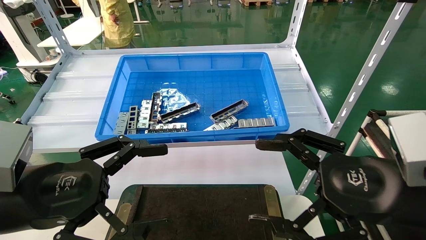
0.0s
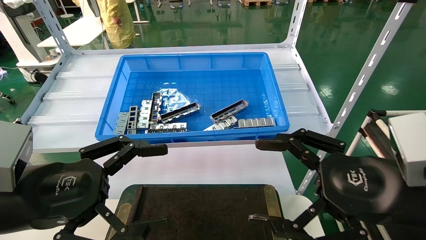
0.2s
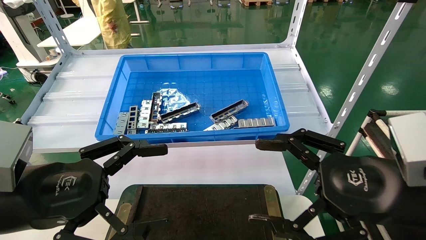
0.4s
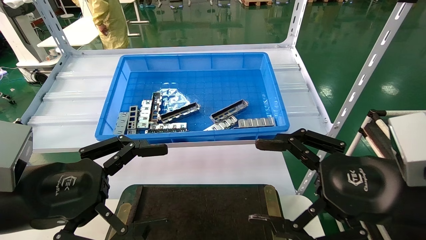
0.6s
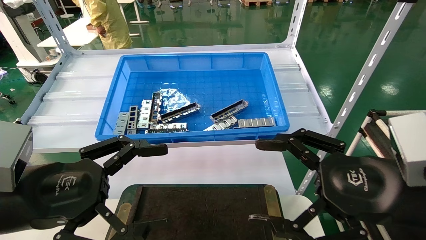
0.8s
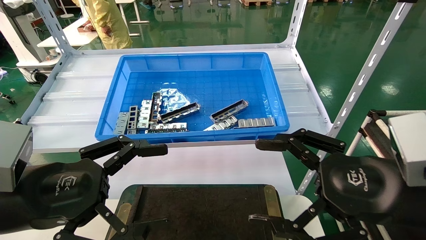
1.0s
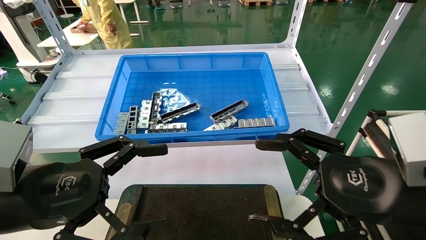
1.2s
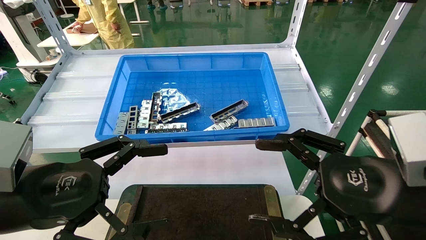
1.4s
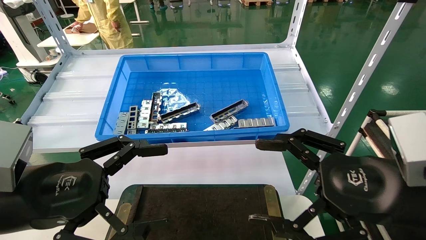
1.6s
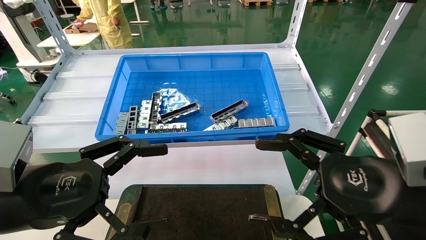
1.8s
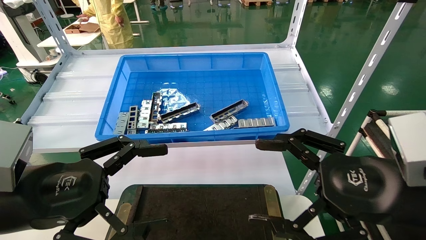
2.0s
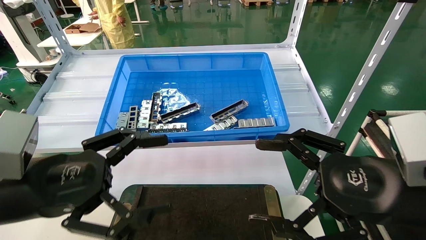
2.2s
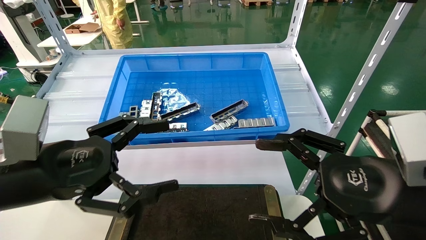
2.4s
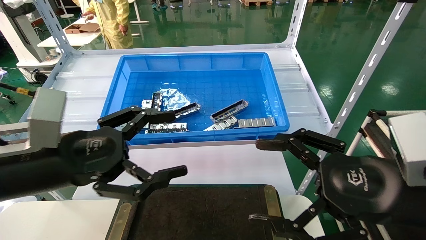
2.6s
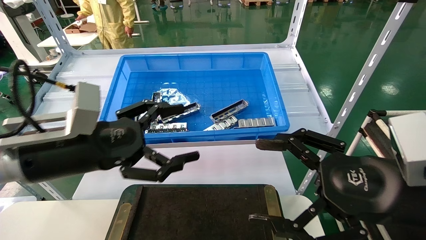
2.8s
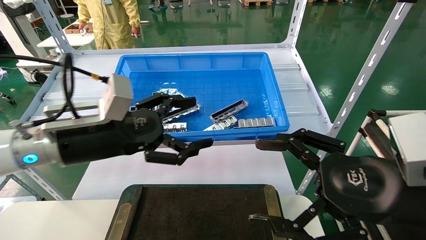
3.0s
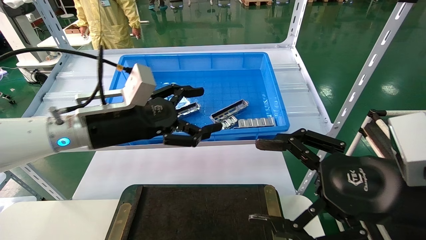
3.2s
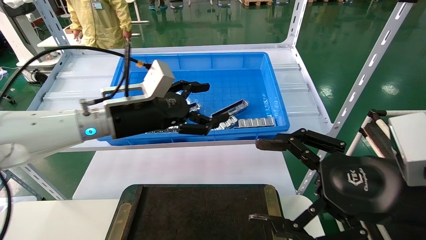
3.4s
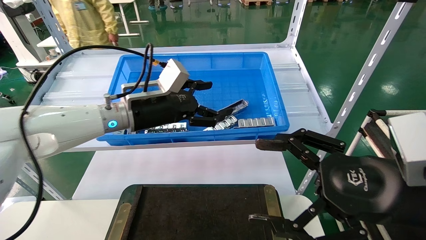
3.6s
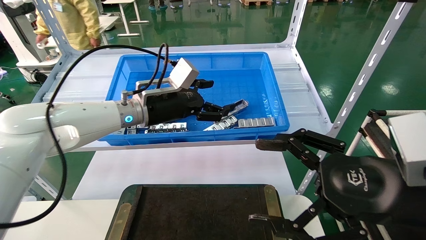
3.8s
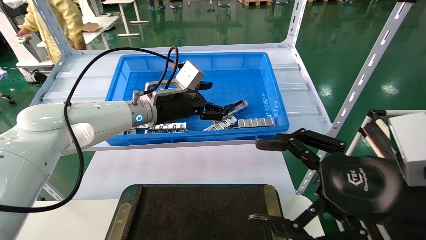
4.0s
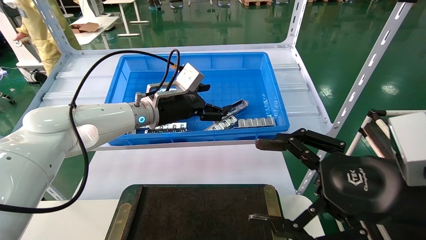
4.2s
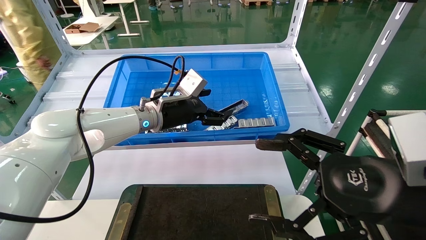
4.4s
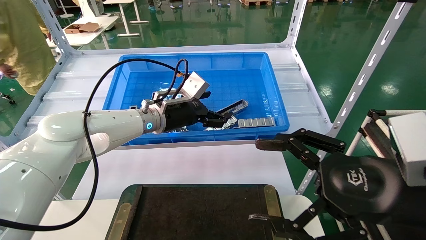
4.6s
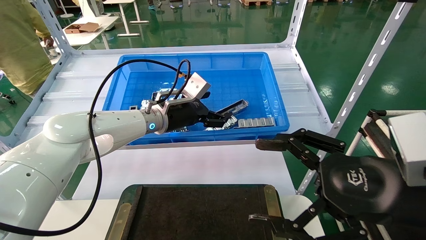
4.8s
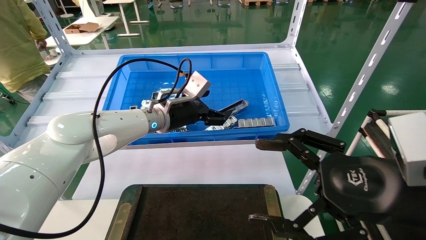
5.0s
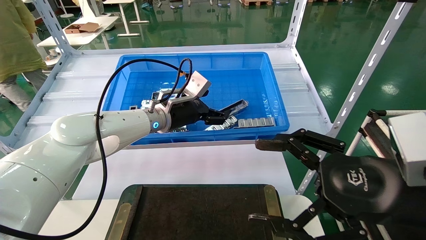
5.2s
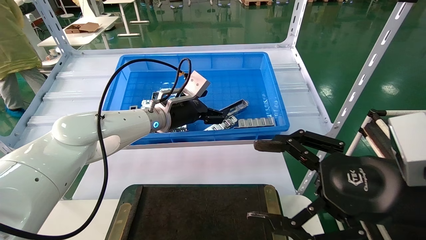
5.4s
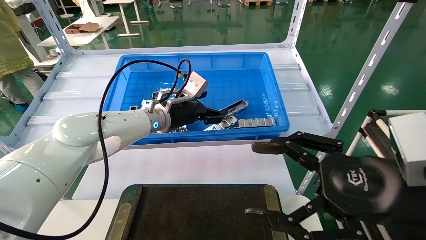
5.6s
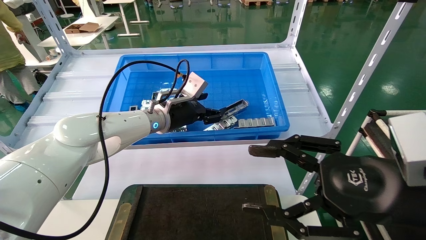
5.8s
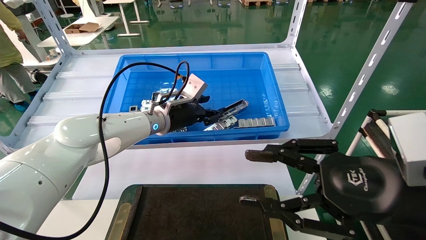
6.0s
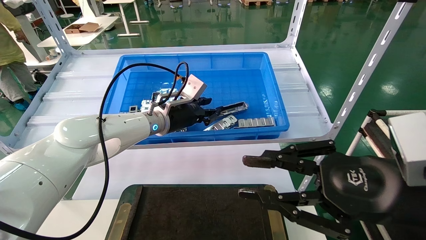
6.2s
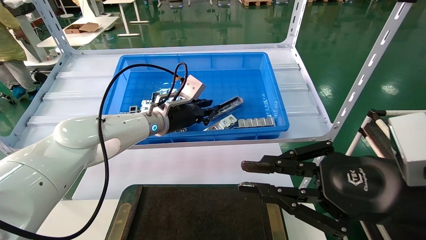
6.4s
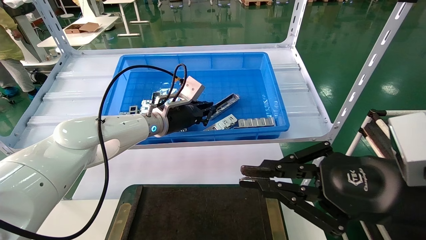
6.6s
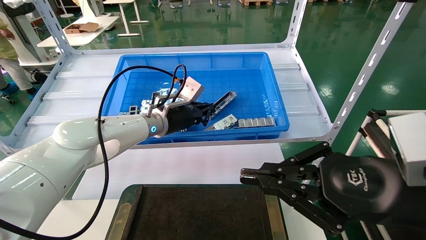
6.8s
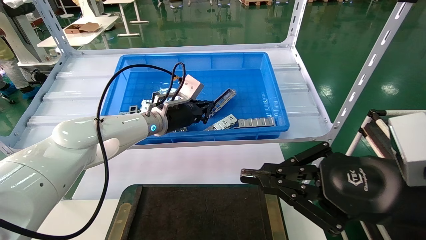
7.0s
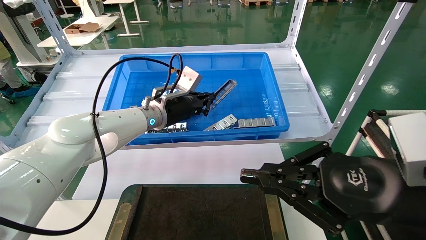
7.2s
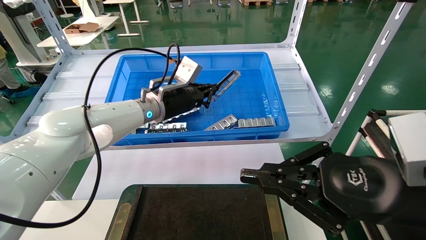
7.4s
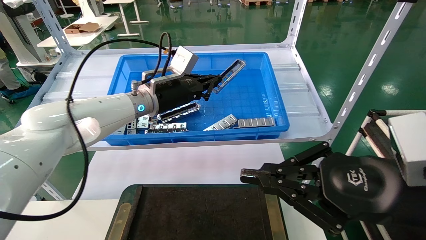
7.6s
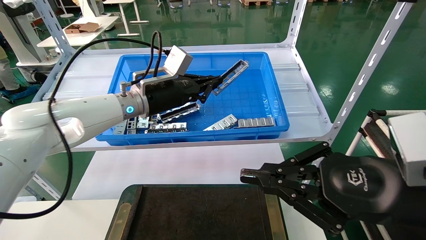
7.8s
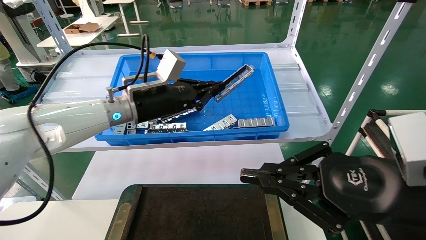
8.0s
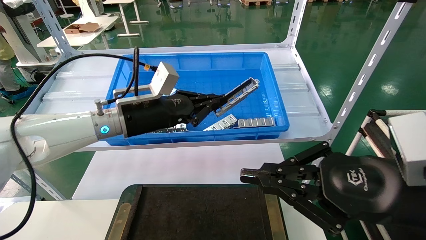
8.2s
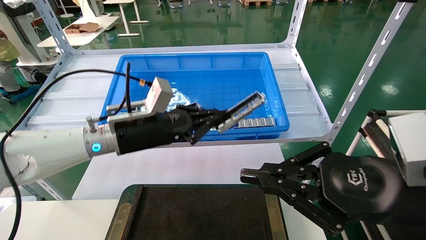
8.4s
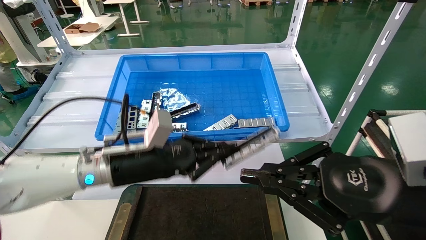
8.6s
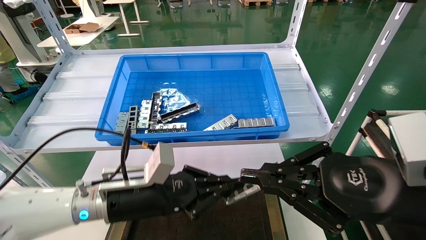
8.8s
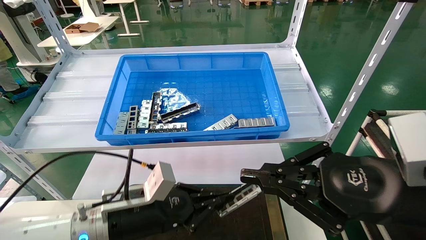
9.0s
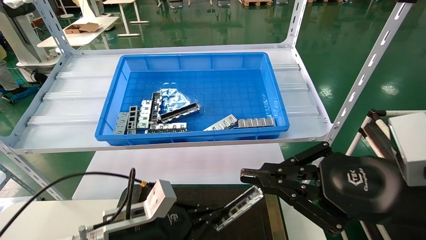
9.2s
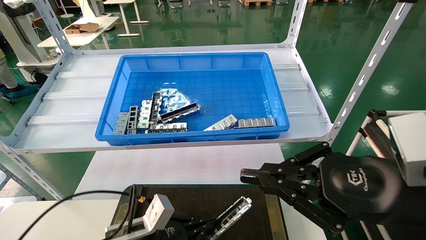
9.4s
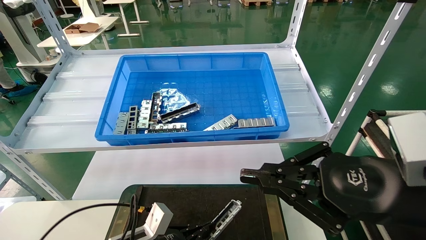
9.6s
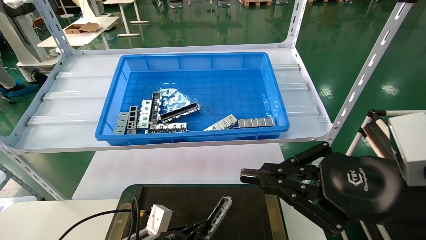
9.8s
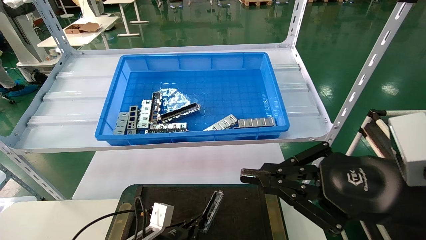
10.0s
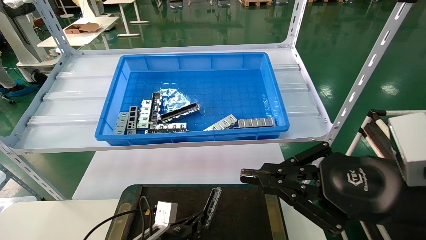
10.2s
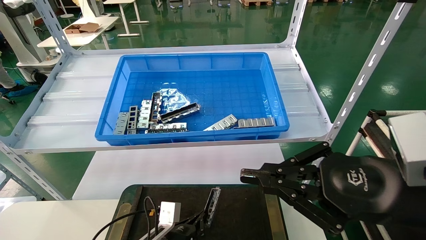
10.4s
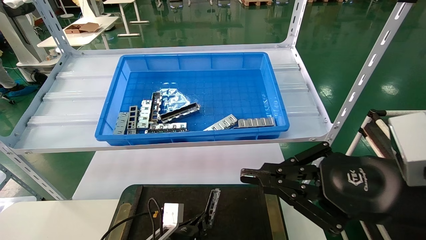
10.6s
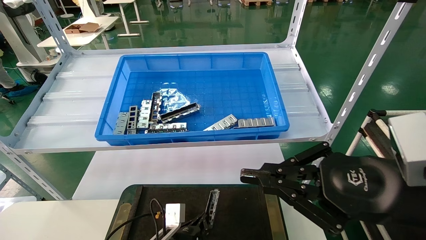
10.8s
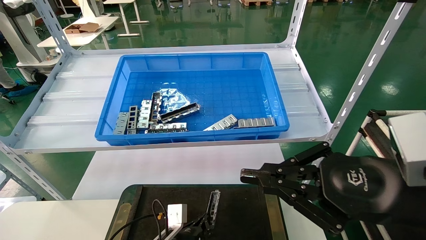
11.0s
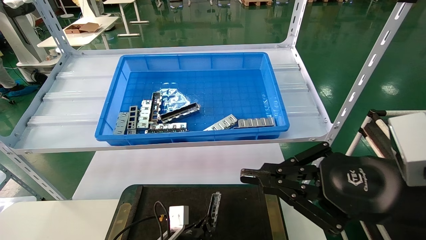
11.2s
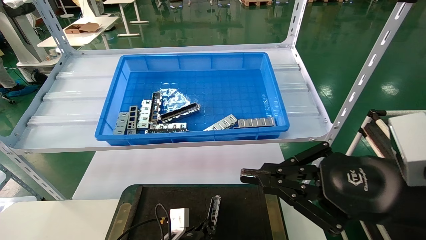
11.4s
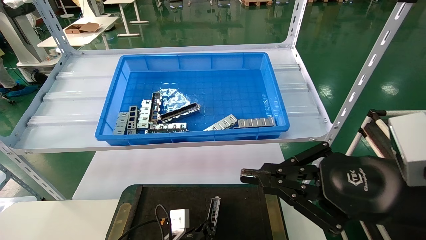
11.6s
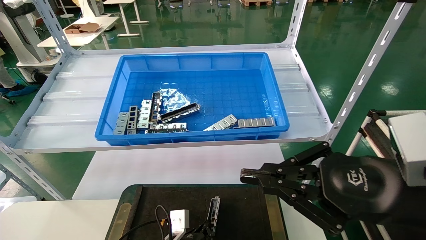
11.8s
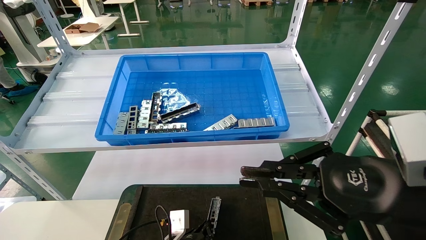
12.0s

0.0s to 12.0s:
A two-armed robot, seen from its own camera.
Task of the whole recording: Grasp the part with one hand and place it on the black container.
Step, 2.4s to 6.8s: Pick up the front USB bracket from the feeding area.
0.0s to 1.6s: The two grippers keep their place.
1.6s to 3.0s: The left gripper shifts approximately 10 cm forward and to the right.
3.0s to 4.4s: The left gripper is displaced forward and to the right by some 20 cm.
4.4s to 6.0s: The right gripper closes up.
6.0s to 7.6s: The left gripper changes place by roughly 5 cm, and closes, while the right gripper closes its fingers.
7.6s to 9.0s: The left gripper moves downward and backward, some 25 cm.
9.0s to 10.4s: The left gripper moves downward, roughly 15 cm.
10.4s to 12.0s: The grippers make only small movements.

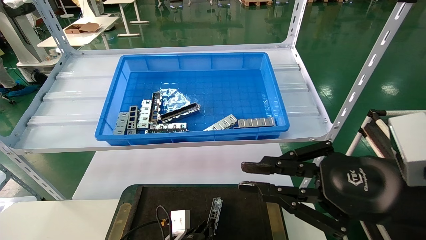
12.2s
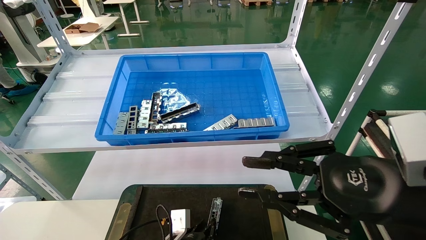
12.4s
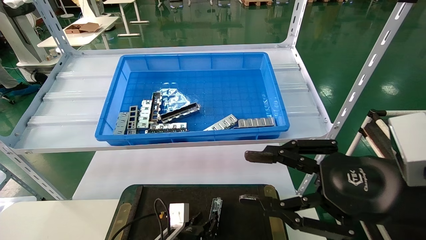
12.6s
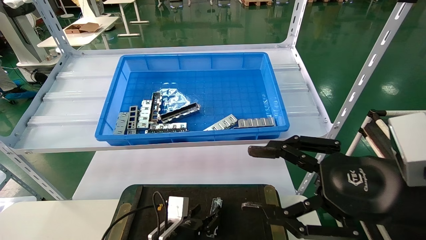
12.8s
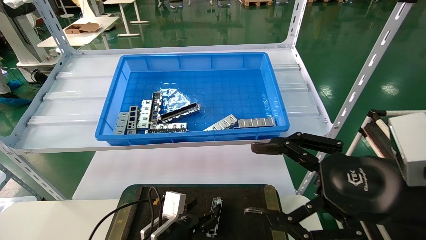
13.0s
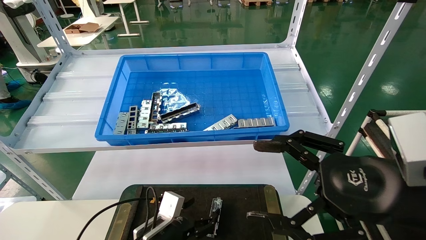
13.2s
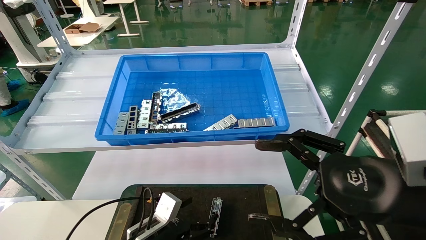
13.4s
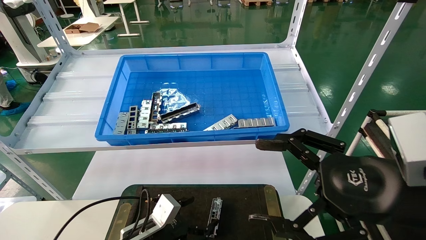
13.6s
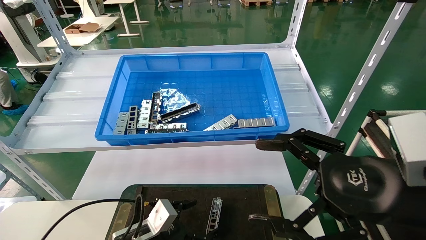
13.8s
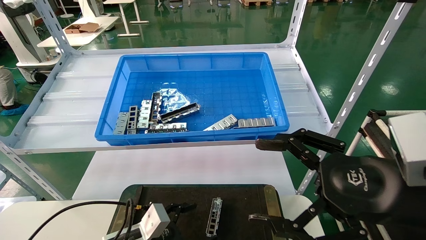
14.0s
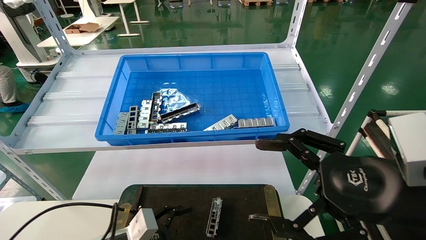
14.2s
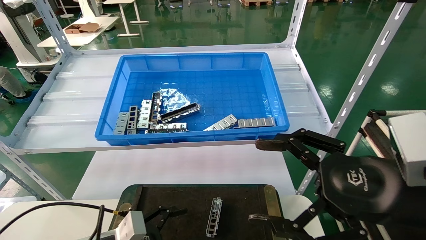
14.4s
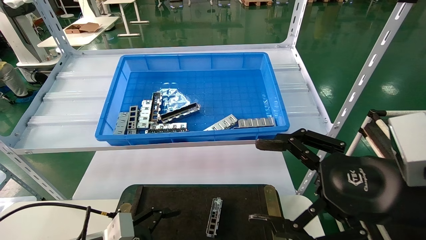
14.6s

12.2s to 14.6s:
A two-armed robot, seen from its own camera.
Task of the whole recording: Grasp the part with one hand and place it on the black container.
12.2s to 13.4s: The right gripper opens its fingers; the left gripper shifts about 10 cm to the left and upward, and opens its fingers.
13.4s to 14.6s: The left gripper goes about 10 cm to the left and backward.
